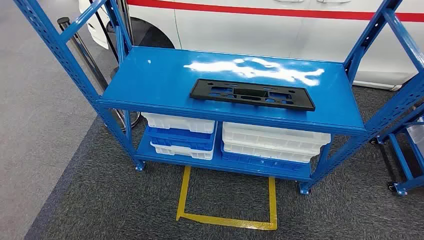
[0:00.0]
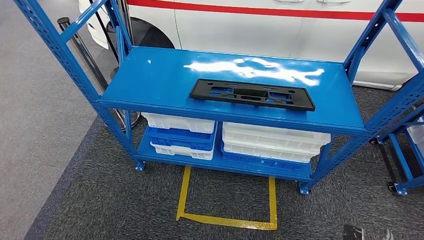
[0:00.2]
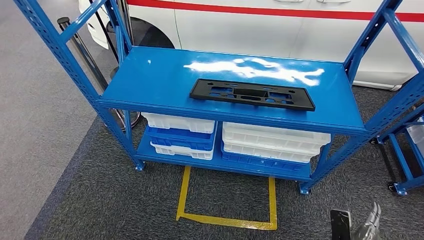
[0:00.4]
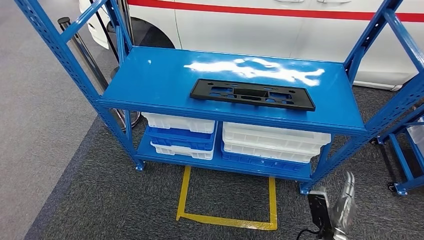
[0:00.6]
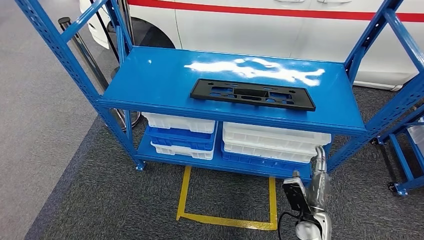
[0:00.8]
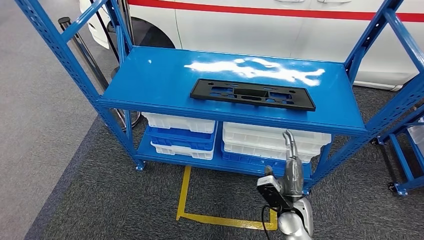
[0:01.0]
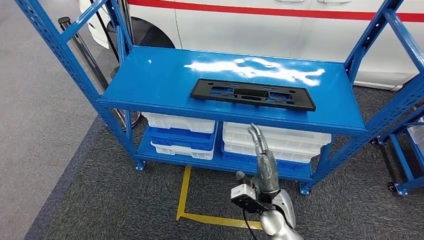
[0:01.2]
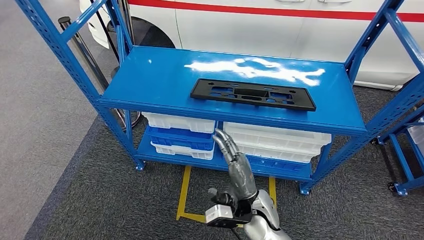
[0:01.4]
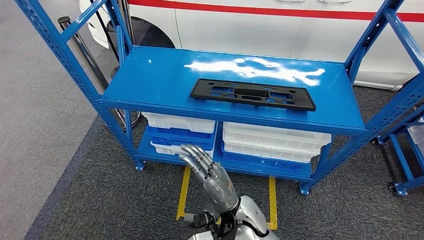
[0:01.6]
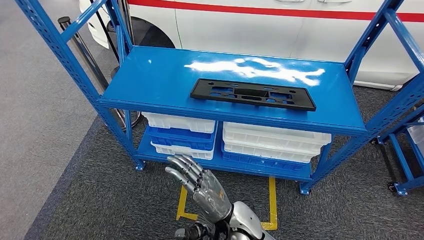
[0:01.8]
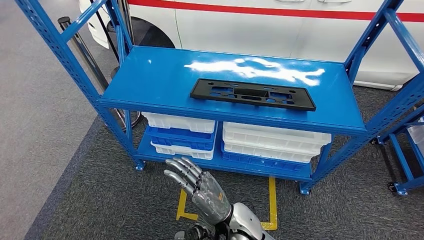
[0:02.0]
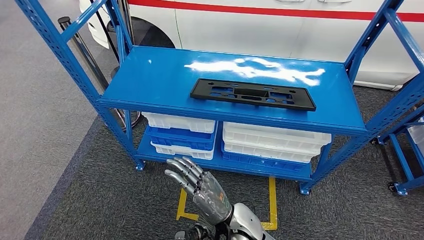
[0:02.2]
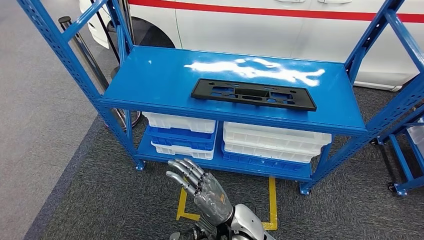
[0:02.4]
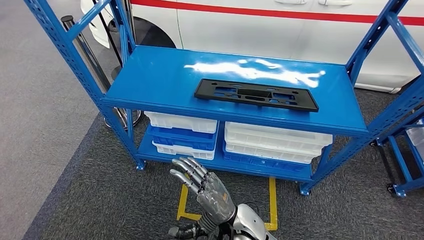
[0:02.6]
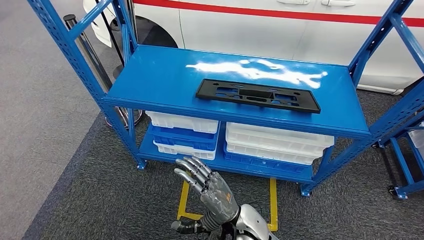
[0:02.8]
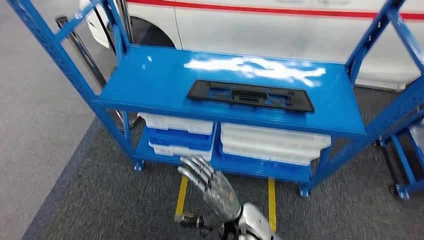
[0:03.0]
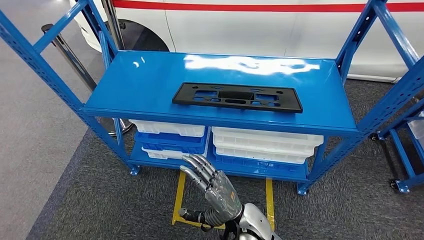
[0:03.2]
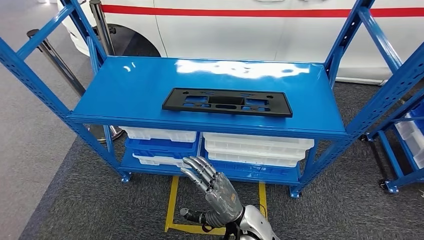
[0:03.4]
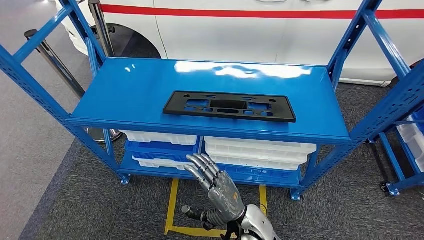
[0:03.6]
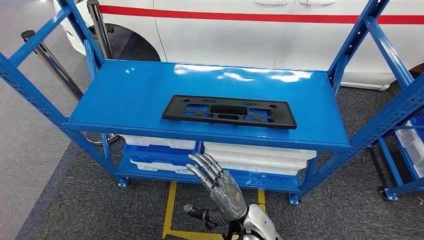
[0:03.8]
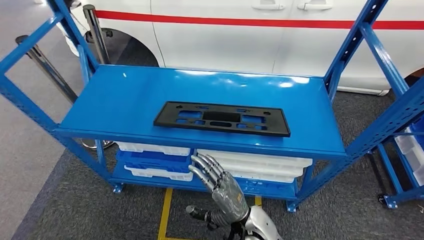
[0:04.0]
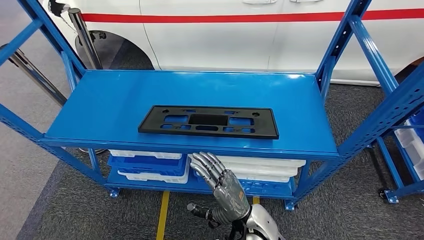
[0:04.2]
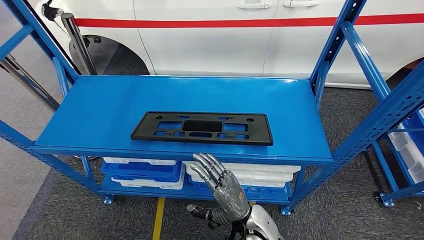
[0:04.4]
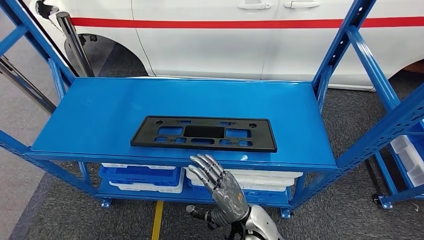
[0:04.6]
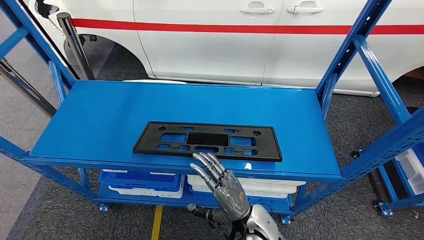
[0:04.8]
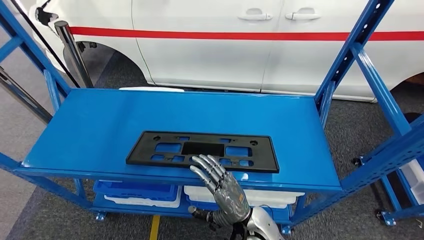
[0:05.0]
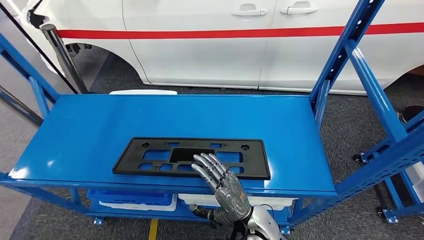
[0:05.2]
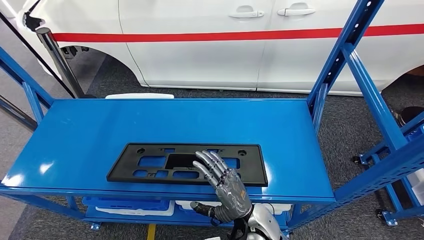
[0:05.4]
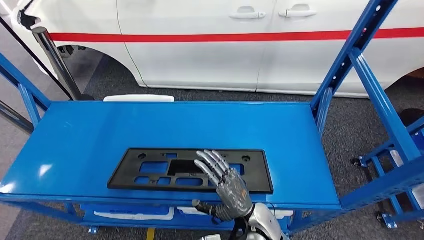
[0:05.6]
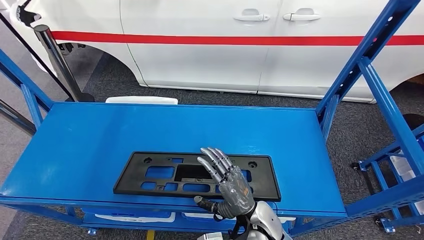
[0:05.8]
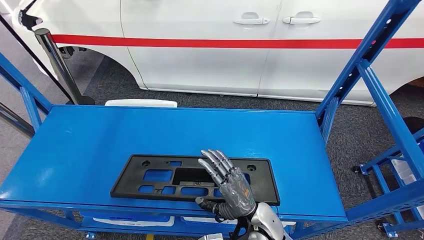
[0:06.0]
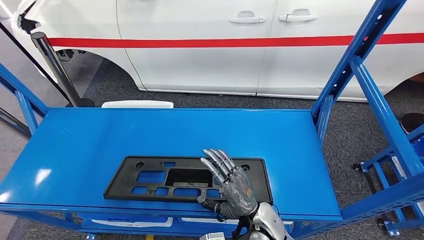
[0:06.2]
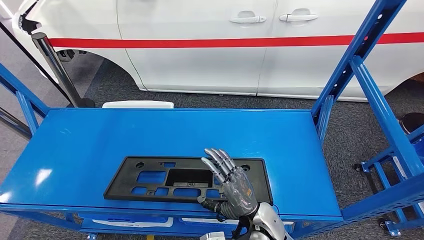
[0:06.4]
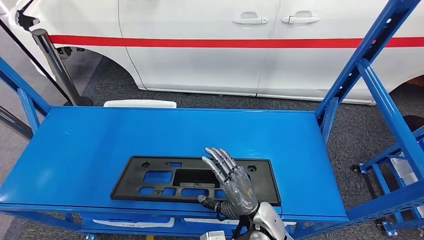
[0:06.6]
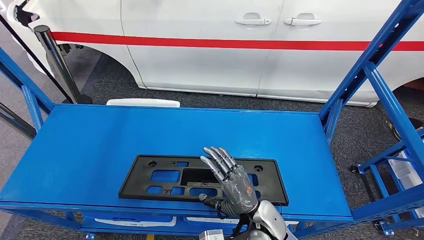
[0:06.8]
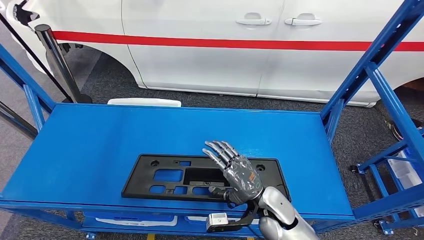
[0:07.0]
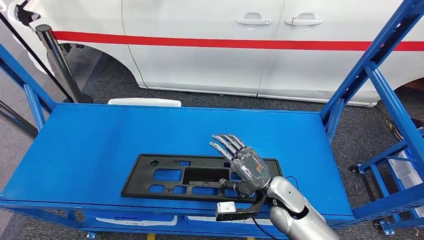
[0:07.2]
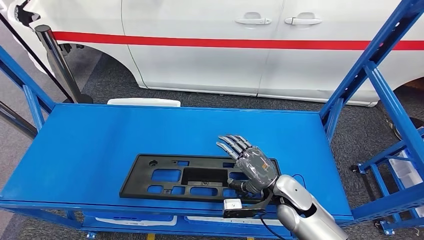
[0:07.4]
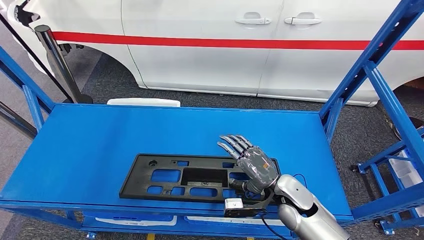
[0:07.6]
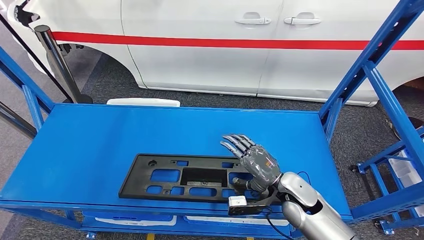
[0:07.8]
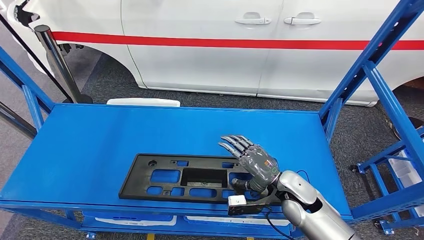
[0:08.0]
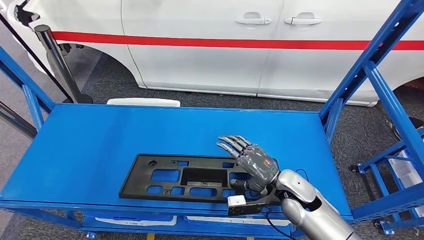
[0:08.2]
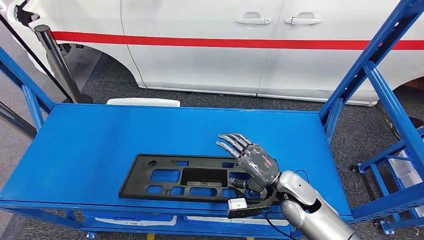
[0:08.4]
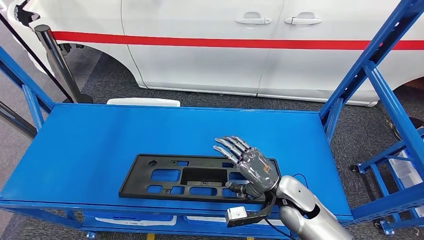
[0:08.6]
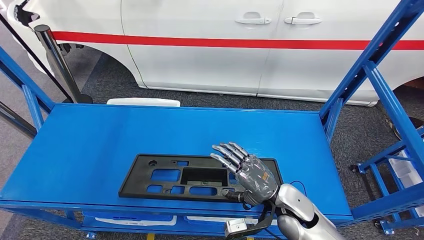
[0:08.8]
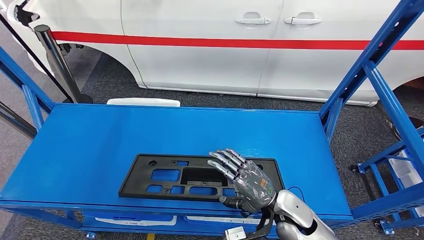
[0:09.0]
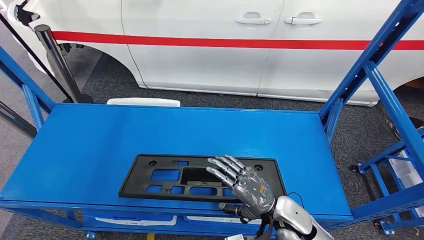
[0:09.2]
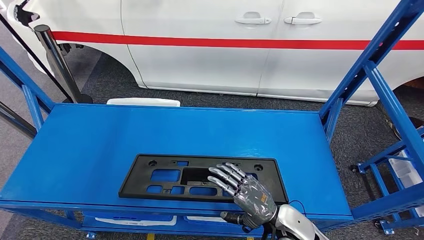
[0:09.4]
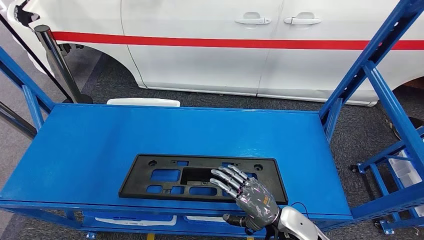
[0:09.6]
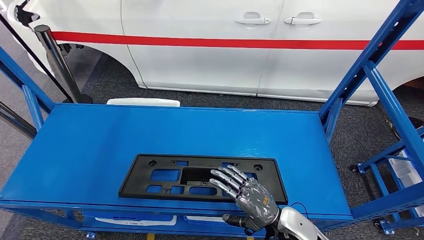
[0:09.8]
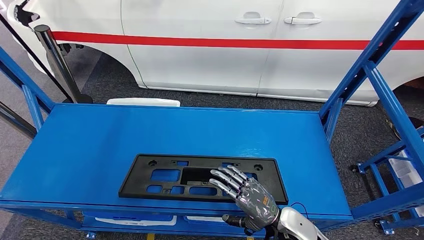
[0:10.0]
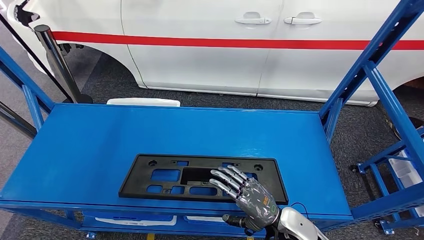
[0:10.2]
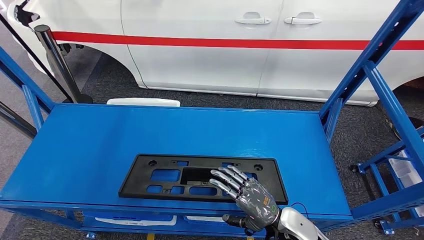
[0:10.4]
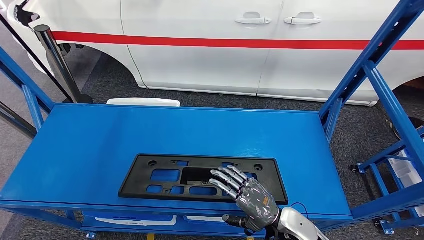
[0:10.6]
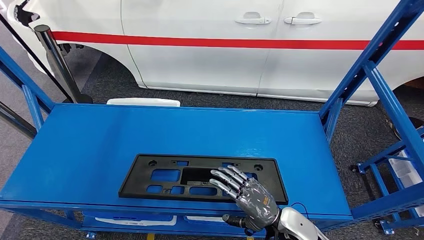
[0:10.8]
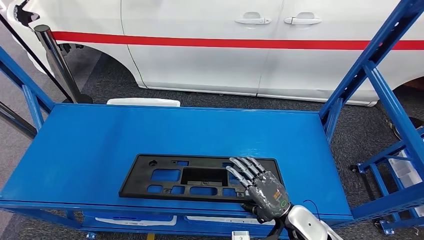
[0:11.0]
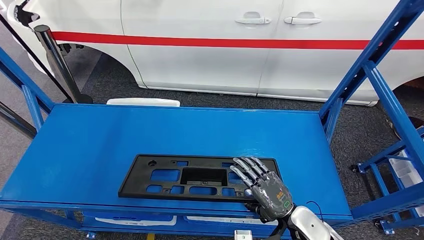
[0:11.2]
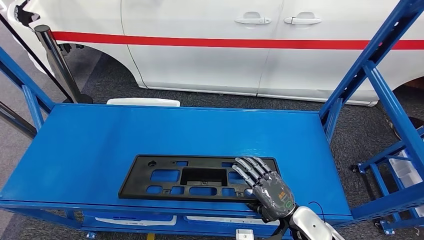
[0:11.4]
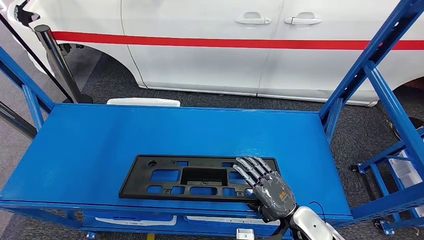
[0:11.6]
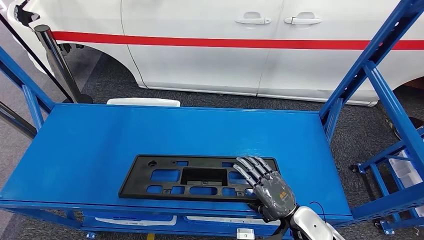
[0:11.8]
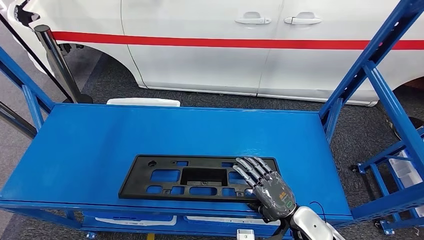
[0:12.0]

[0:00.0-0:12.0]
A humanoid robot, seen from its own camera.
0:01.6 to 0:03.0: There are only small adjustments of the hands.
0:07.6 to 0:09.0: The hands make only small movements.
0:09.0 to 0:10.4: The hands move only a little.

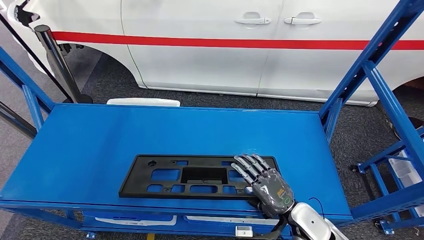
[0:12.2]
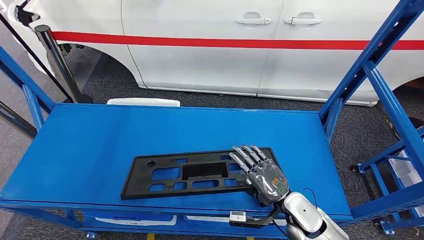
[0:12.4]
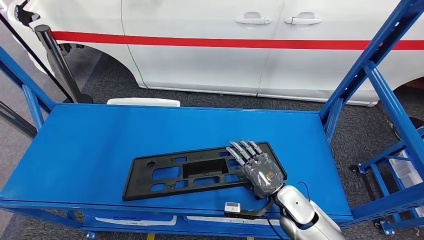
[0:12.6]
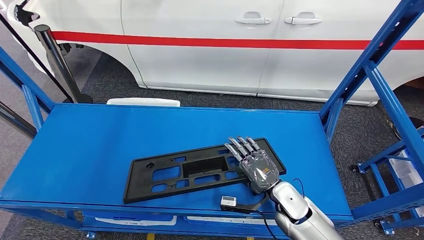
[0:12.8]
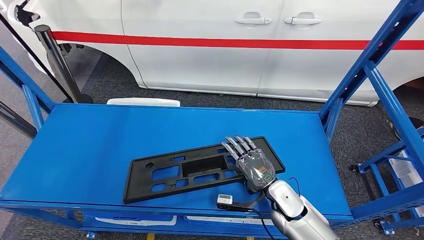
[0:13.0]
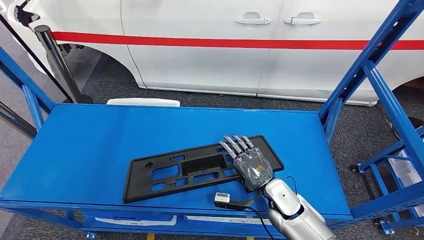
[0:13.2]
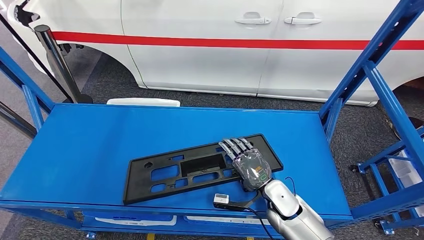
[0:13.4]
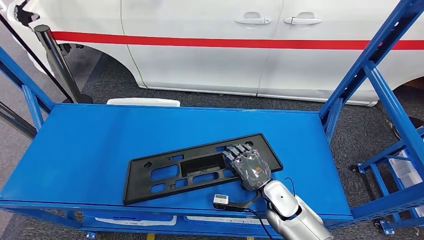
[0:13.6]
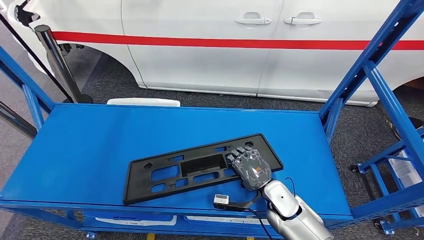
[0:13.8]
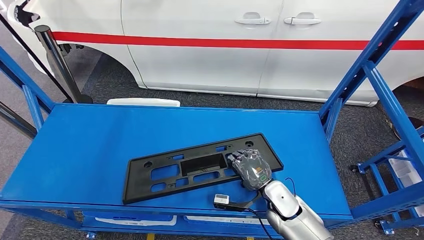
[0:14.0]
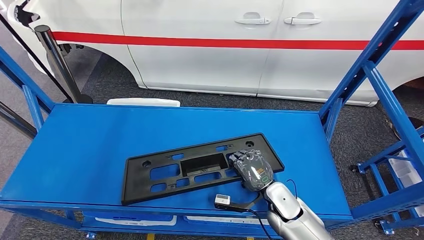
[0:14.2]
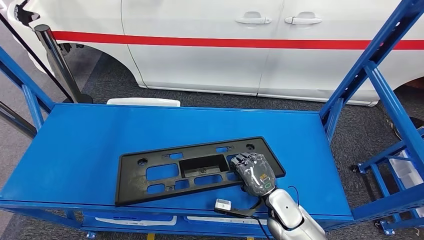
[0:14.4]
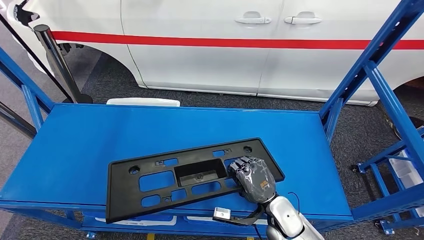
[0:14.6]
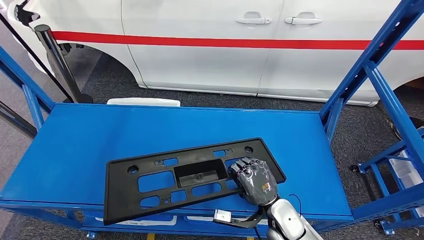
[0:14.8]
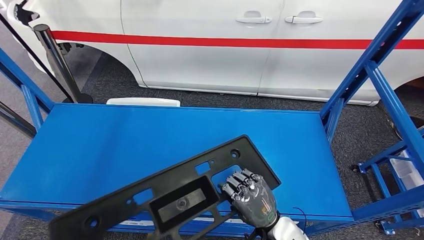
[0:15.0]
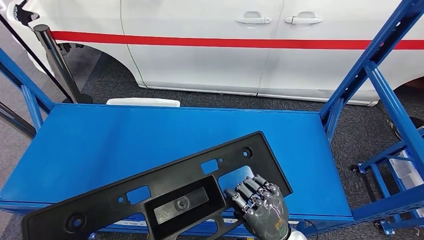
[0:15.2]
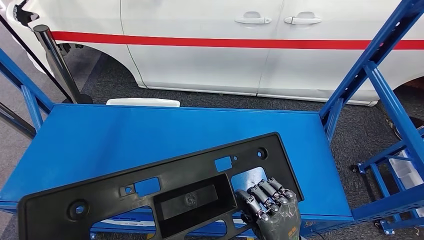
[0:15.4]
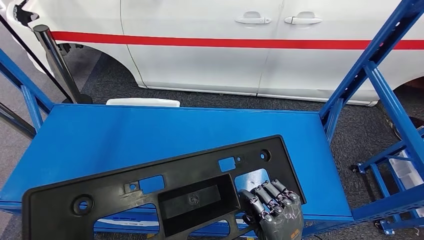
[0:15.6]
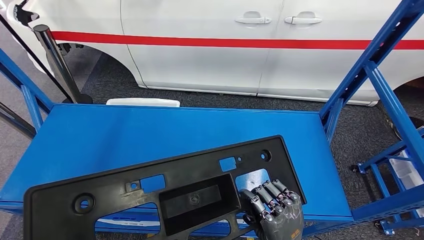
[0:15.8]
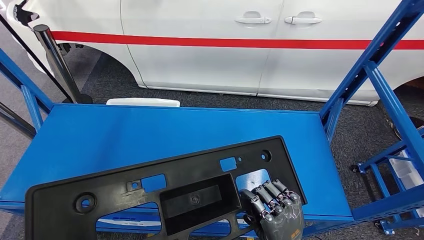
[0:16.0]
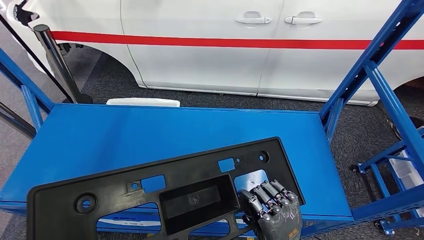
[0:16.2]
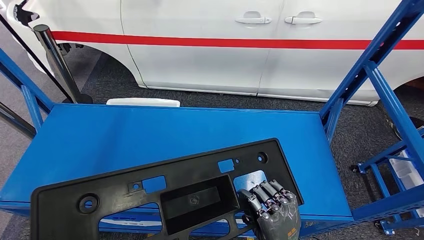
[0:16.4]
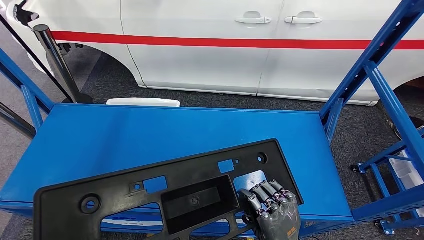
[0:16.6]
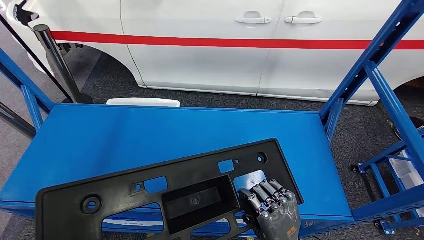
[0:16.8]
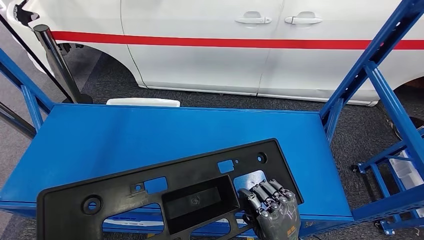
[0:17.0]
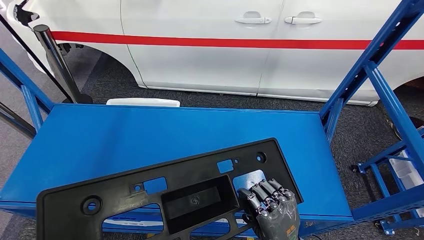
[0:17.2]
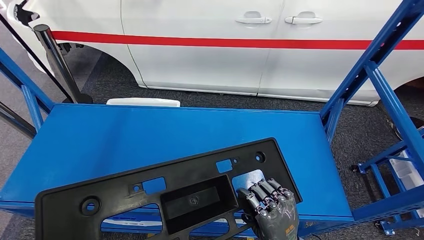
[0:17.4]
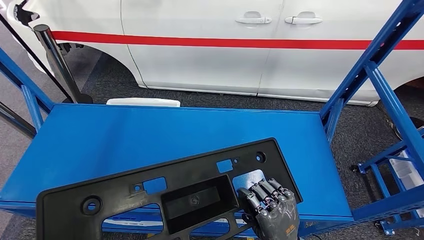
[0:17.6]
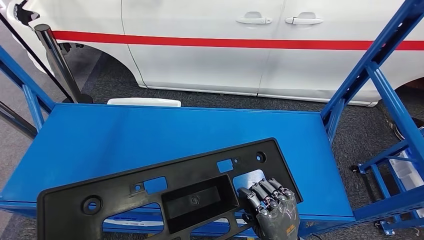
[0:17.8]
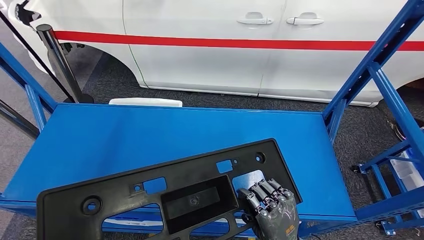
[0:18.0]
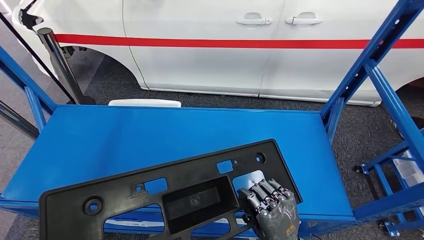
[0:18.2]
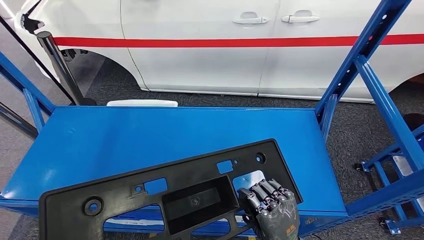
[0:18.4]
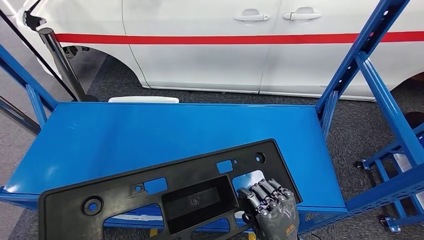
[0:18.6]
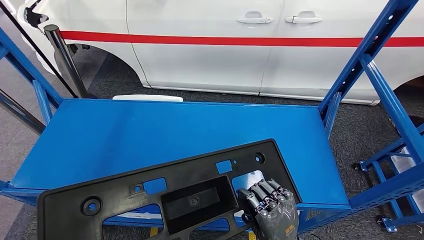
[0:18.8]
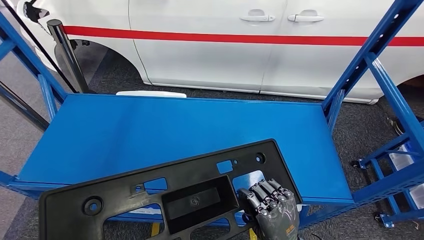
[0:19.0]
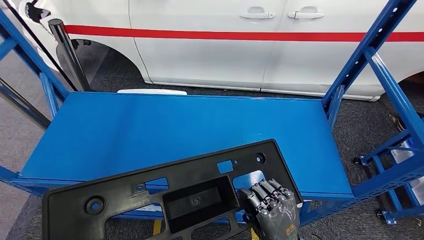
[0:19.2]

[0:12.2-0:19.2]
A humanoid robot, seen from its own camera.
Step, 0:12.2 to 0:15.2: Pick up the large material from the shelf.
0:12.2 to 0:13.6: The right hand goes about 10 cm forward and to the left.
0:13.6 to 0:15.0: The right hand travels backward by some 10 cm.
0:15.0 to 0:16.4: The right hand changes place by roughly 5 cm.
0:16.4 to 0:17.8: The hands make only small movements.
